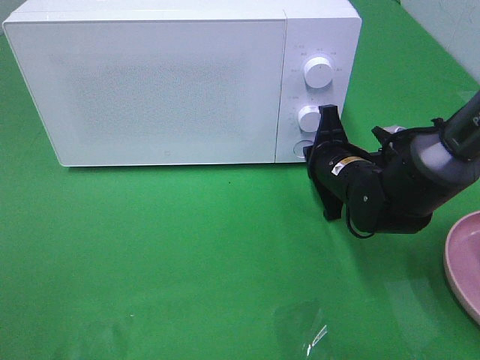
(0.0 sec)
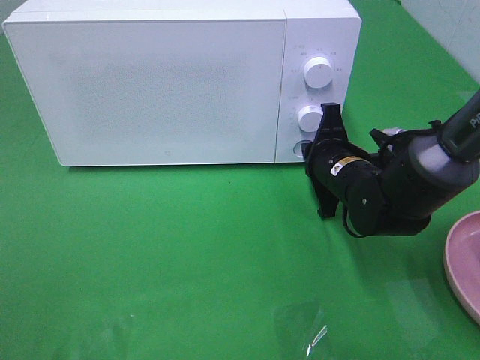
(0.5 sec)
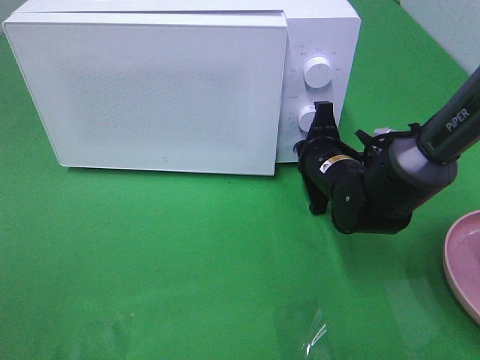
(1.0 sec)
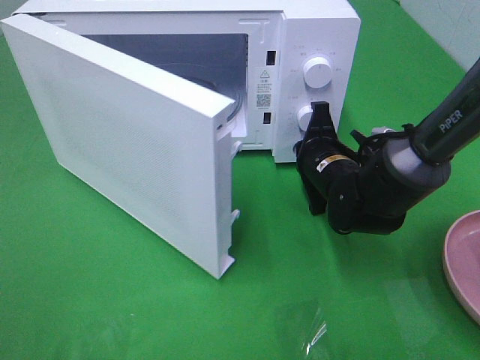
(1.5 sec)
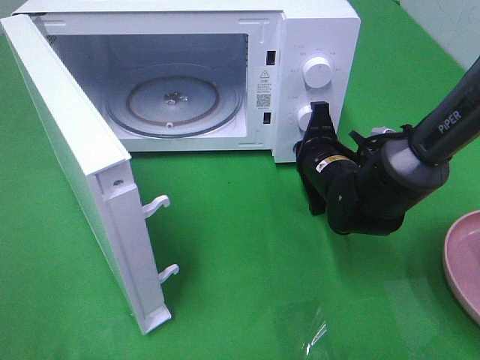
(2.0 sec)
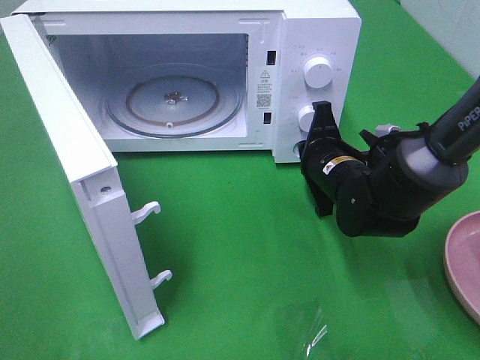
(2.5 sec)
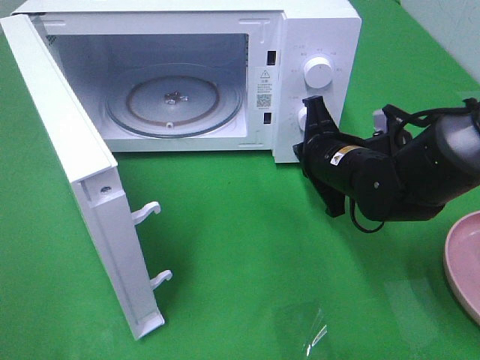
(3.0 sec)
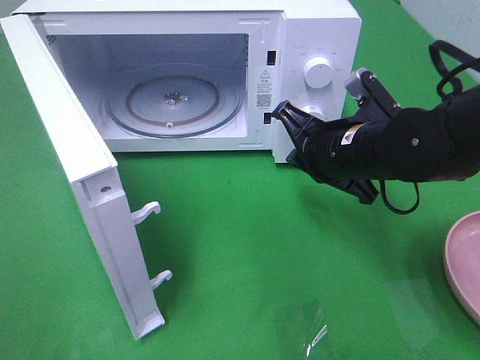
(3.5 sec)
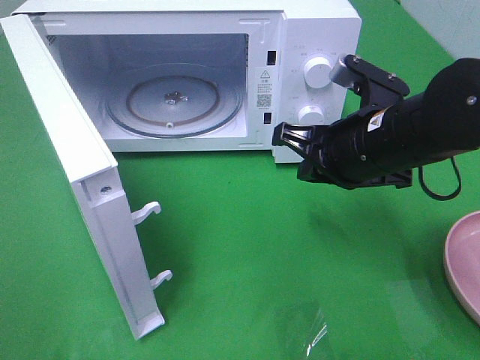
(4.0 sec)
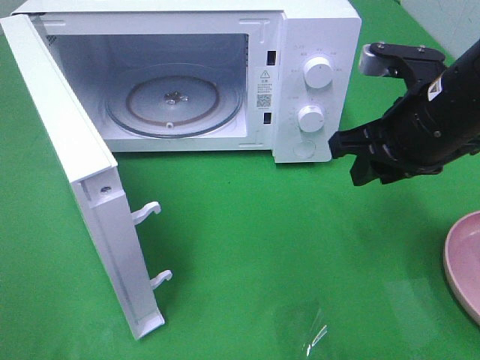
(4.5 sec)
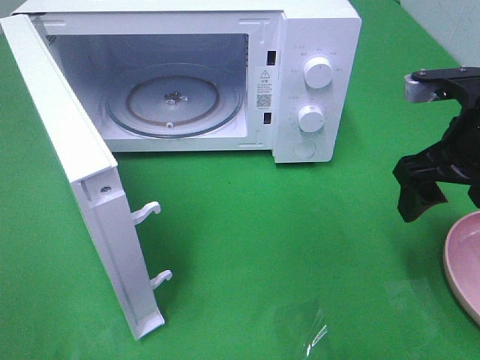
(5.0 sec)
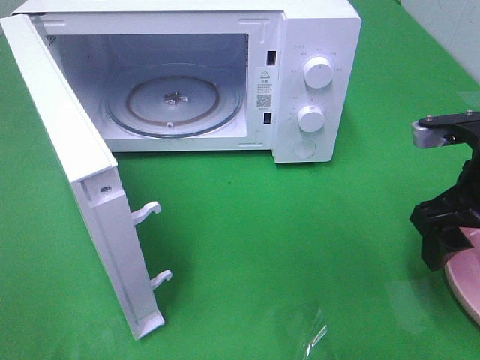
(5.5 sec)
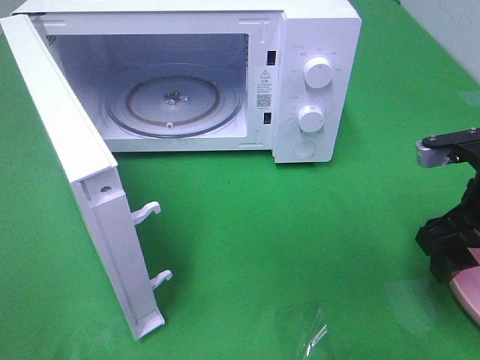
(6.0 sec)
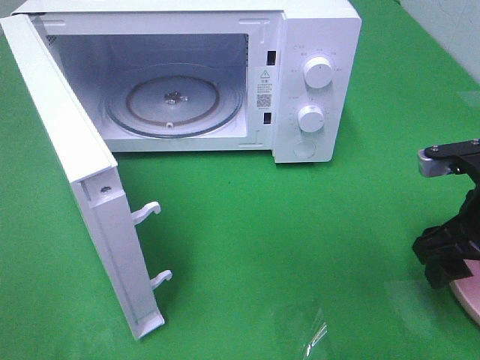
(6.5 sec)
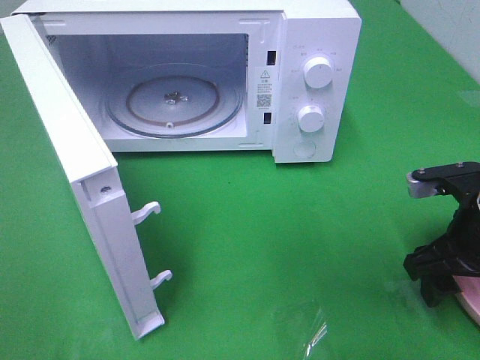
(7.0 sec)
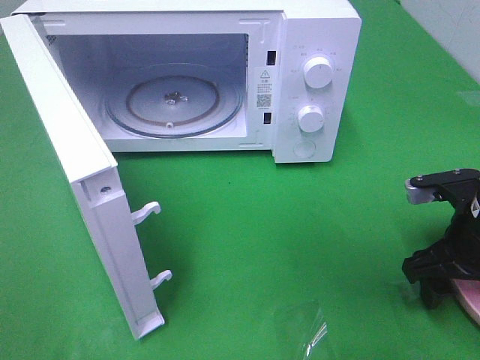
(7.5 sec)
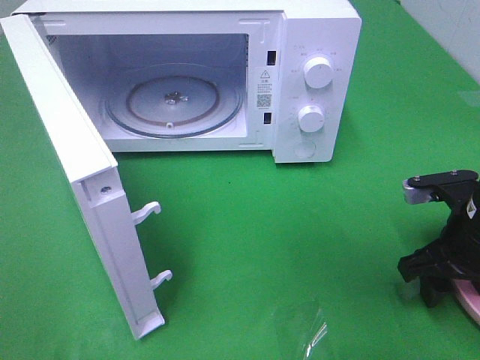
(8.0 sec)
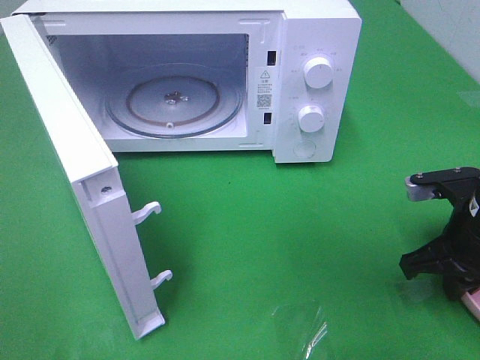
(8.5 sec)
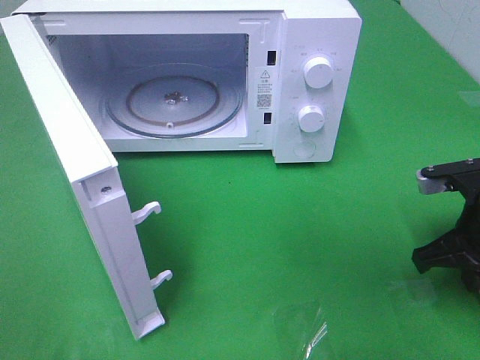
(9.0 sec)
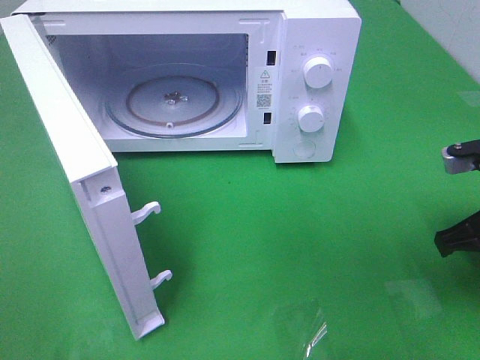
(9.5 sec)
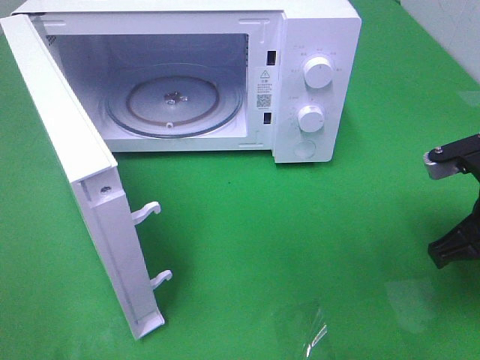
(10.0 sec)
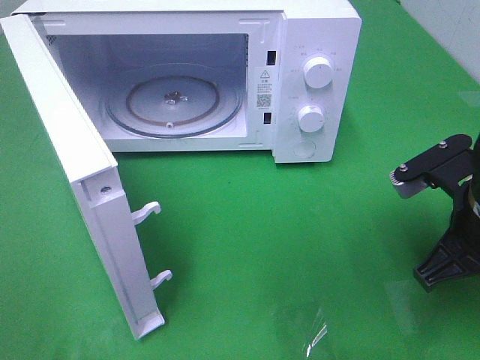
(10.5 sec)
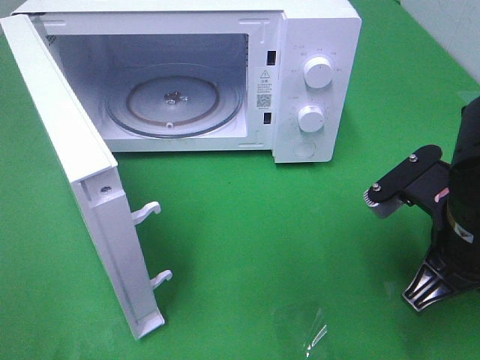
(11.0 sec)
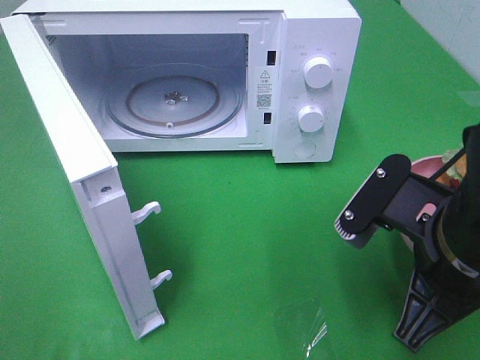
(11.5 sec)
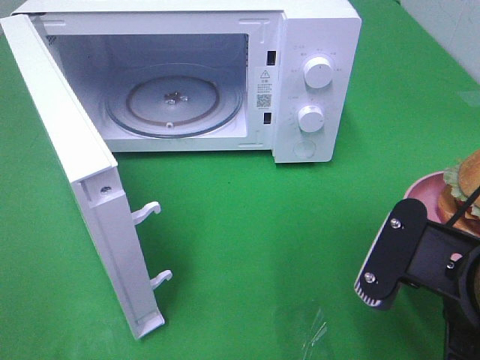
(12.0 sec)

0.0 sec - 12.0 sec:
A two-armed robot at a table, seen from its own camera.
Task of the whole recording: Heat the burger.
Step, 0.0 sec - 2.5 sec: Right hand: press the switch.
Step, 3.0 sec - 9.0 sec: Right hand: grab the plate with the hamburger.
2.0 sec - 4.0 sec: The right gripper heads upward and backward, covering roughly 15 cm.
4.0 sec - 6.0 sec: The right gripper travels to the right by roughly 10 cm, and opens up.
6.0 sec - 8.0 sec: The right gripper is displaced downward by some 5 cm.
8.0 sec - 10.0 sec: The right gripper goes about 5 cm upward, and closes up.
10.0 sec - 12.0 sec: The right gripper heads backward and to the left, covering some 15 cm.

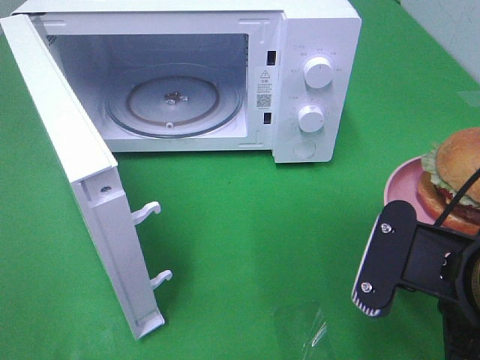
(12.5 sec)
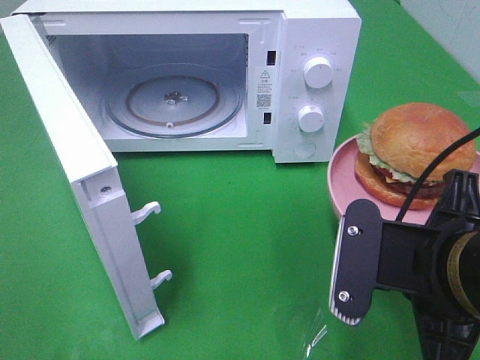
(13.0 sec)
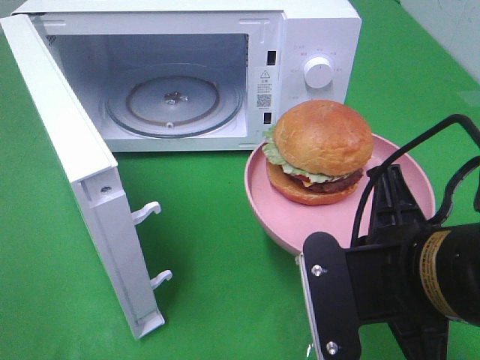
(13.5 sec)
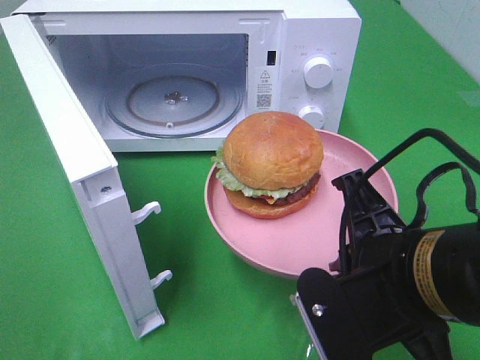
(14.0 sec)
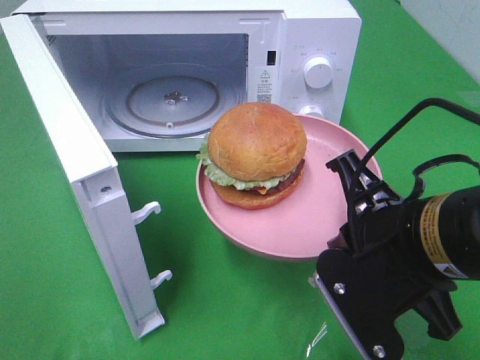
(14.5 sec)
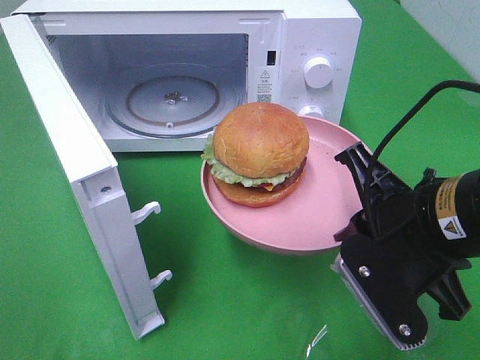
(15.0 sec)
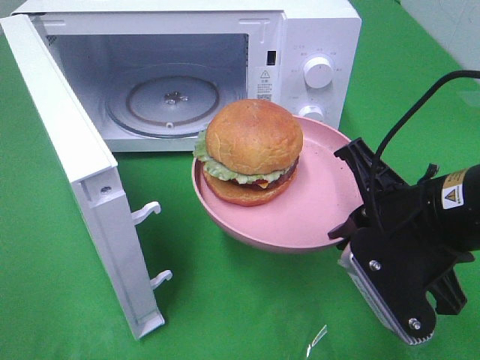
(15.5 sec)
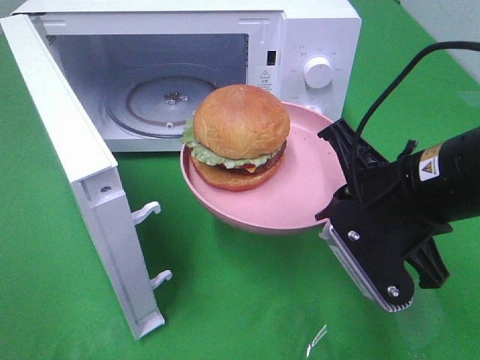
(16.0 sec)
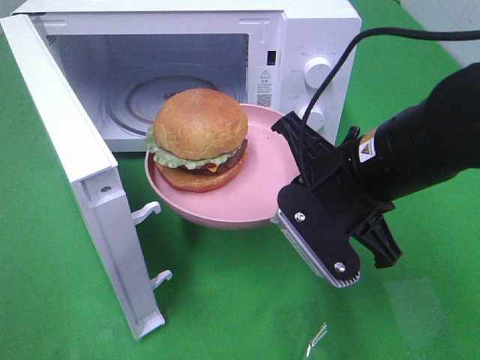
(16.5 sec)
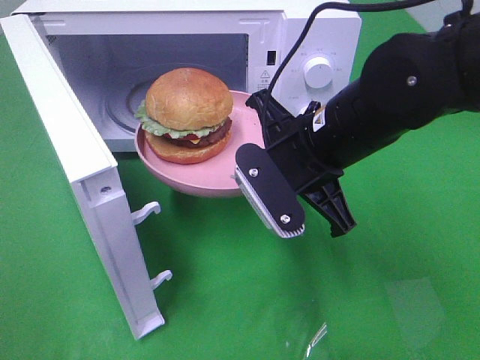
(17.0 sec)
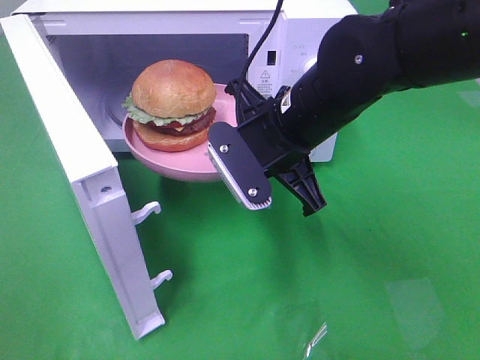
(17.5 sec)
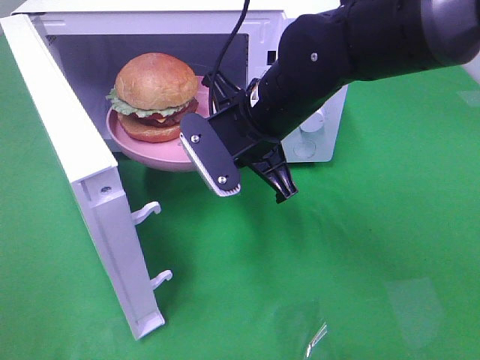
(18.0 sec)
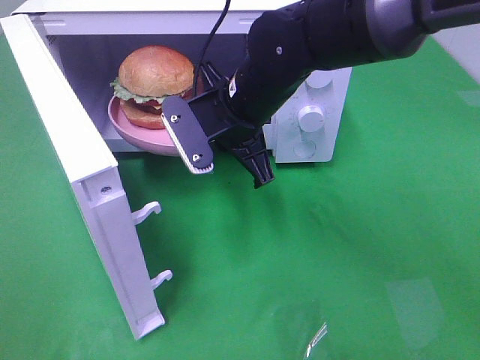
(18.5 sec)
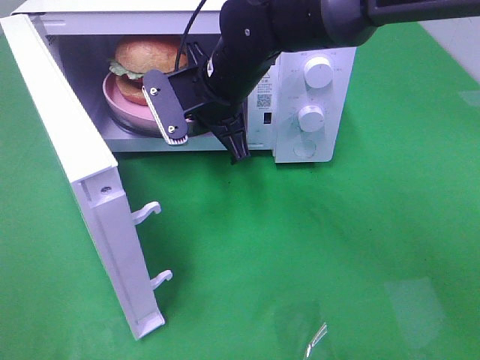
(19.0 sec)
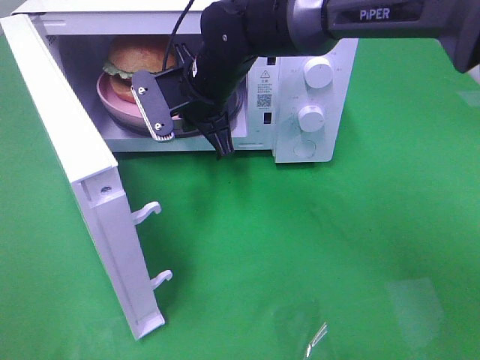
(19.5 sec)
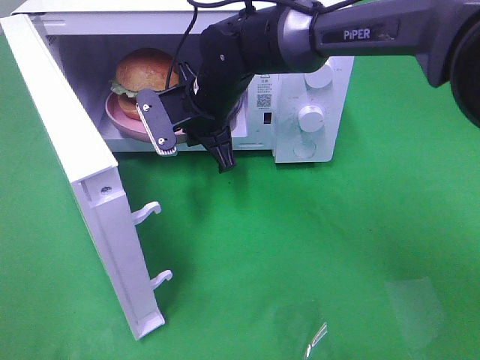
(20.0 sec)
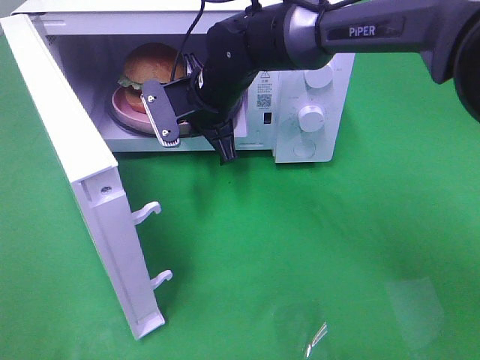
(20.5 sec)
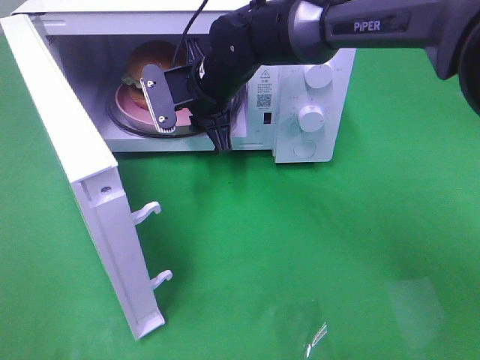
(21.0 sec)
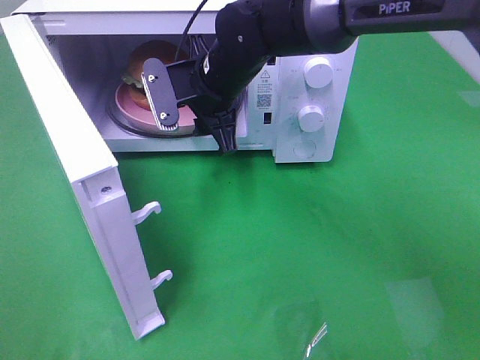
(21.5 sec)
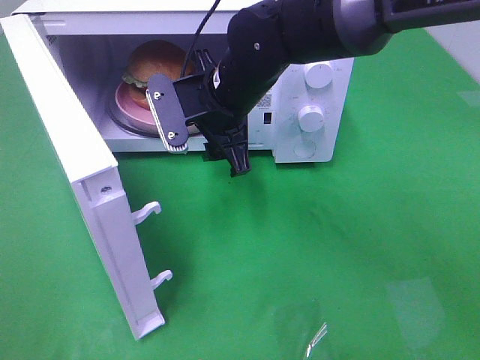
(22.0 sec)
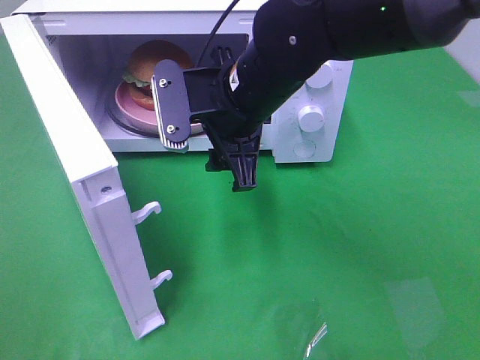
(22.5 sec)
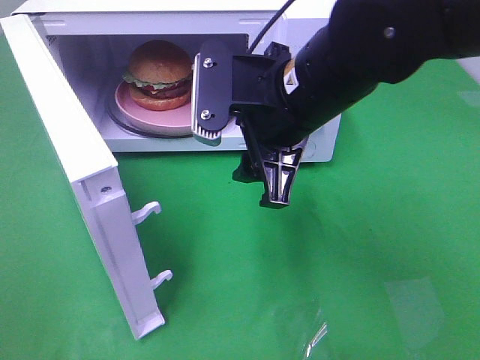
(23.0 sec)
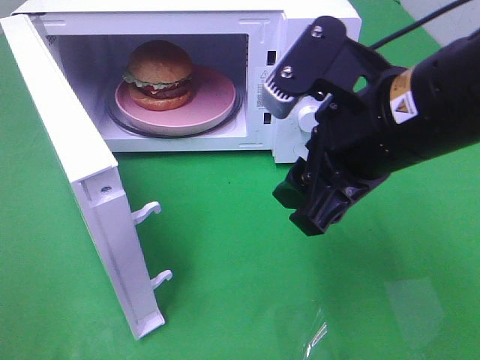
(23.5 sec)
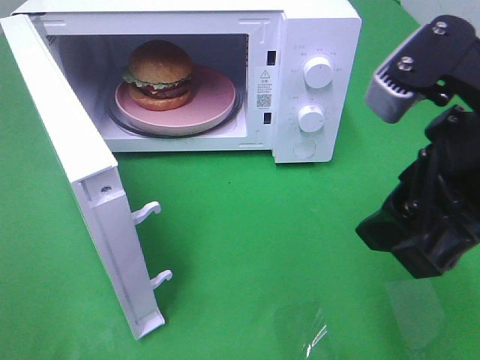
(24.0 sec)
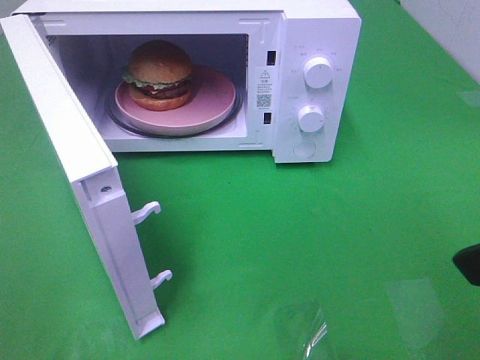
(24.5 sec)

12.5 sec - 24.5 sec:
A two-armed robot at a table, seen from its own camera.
Task of the whole recording: Heat the burger.
Step, 12.5 sec - 21.5 sec: Right hand: place the plate in the microwave.
14.5 sec - 16.5 sec: The right gripper moves forward, approximately 5 cm.
16.5 sec - 18.5 sec: The right gripper moves forward and to the left, approximately 15 cm.
18.5 sec - 20.5 sec: The right gripper shifts about 5 cm forward.
20.5 sec - 22.5 sec: The right gripper moves backward and upward, some 10 cm, and opens its fingers.
22.5 sec - 24.5 sec: The right gripper travels backward, to the right and upward by approximately 30 cm.

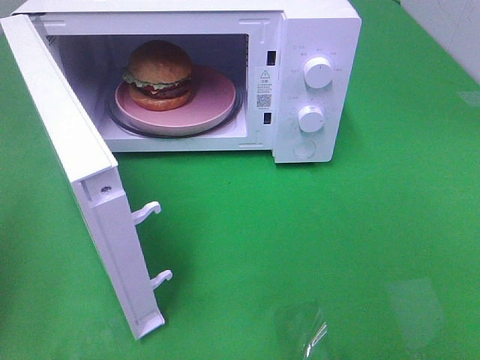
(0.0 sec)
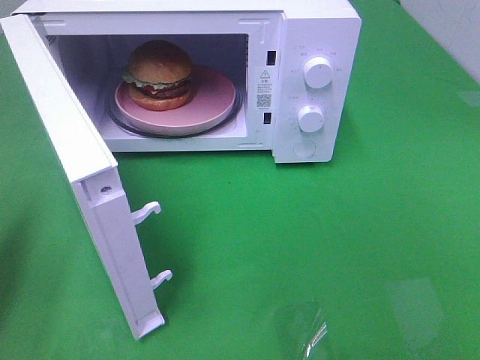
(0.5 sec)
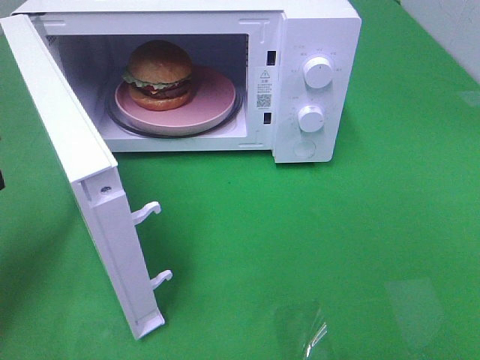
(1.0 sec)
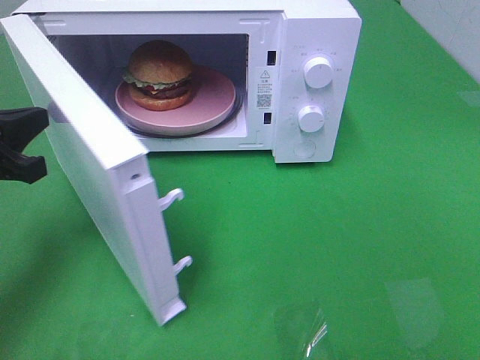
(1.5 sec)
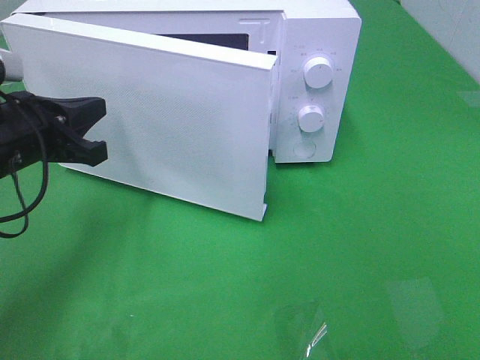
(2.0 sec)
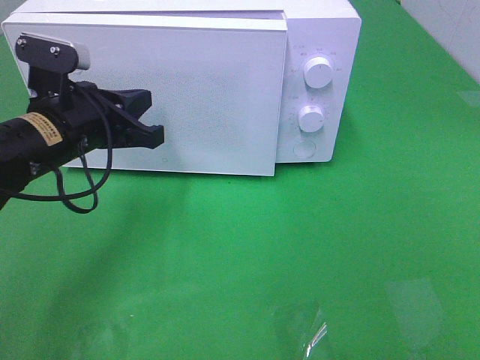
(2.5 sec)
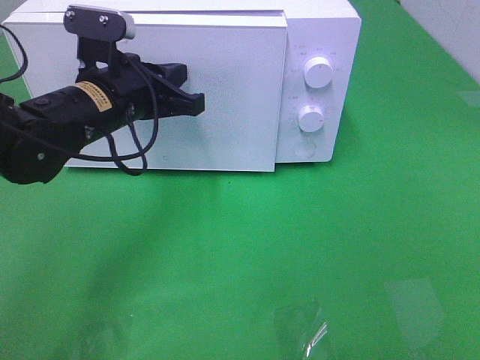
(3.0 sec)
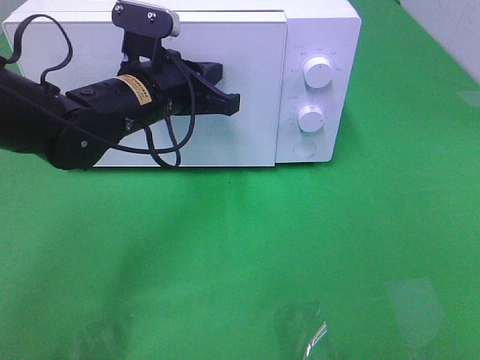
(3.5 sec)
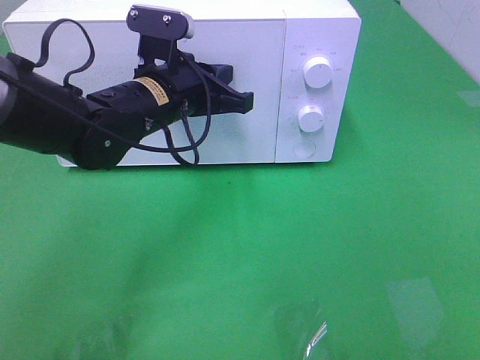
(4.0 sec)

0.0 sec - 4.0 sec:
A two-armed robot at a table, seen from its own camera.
Task of the whole recording: Heat the burger.
0.0 sec - 2.0 sec: The left gripper moves forward, to the right and downward, about 20 cm.
2.0 sec - 4.0 sec: The left gripper heads to the right and forward, covering approximately 15 cm.
